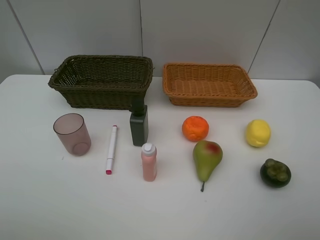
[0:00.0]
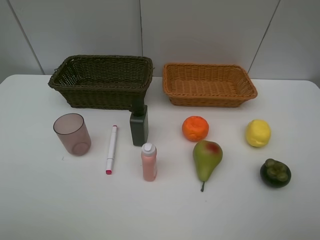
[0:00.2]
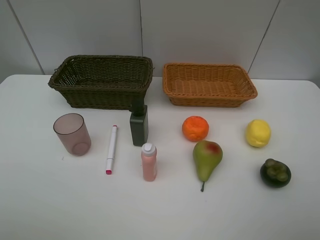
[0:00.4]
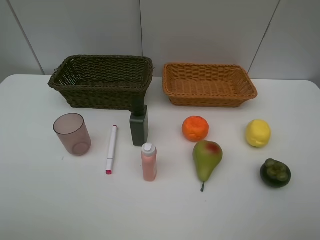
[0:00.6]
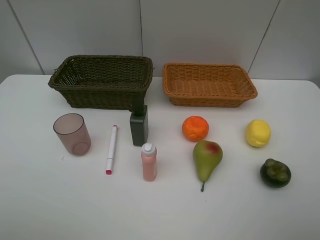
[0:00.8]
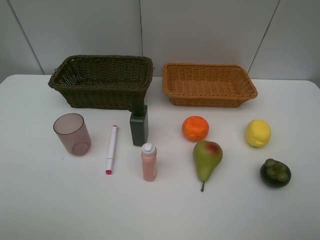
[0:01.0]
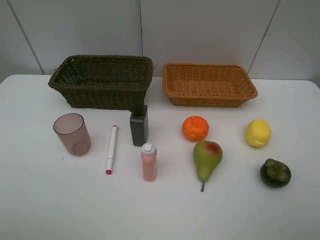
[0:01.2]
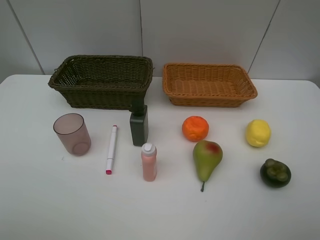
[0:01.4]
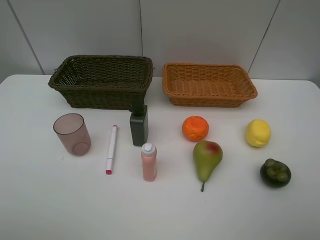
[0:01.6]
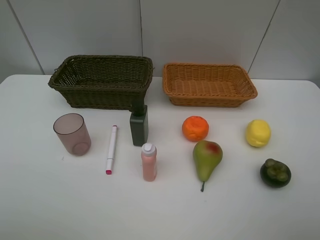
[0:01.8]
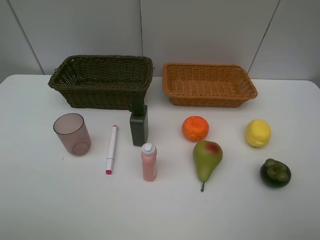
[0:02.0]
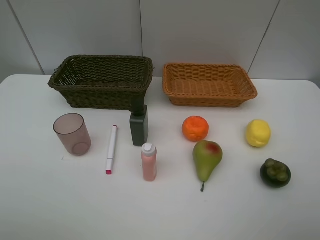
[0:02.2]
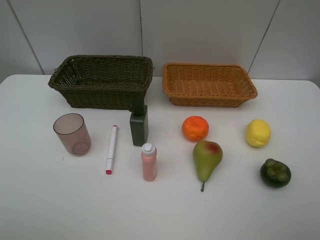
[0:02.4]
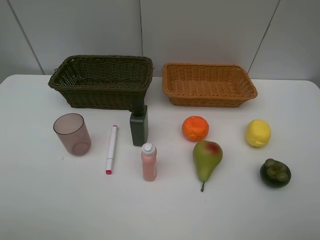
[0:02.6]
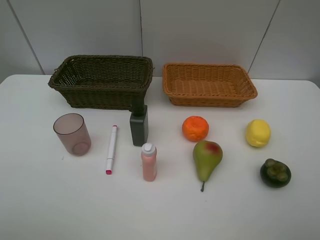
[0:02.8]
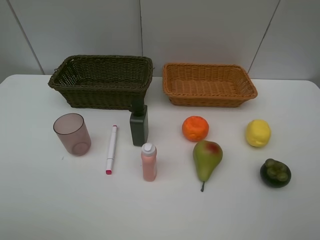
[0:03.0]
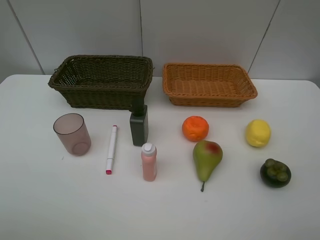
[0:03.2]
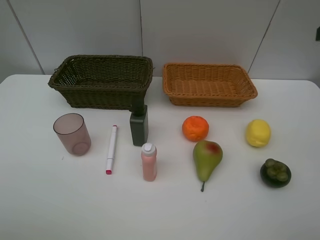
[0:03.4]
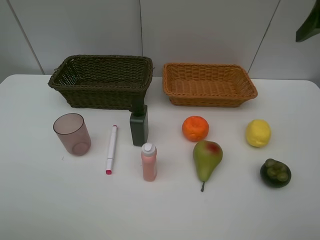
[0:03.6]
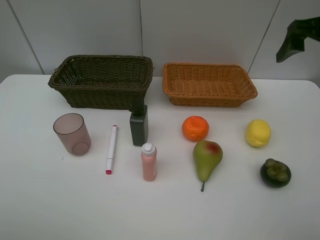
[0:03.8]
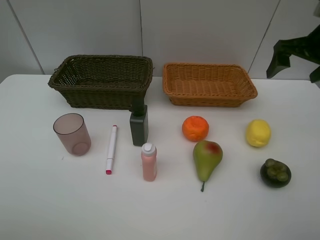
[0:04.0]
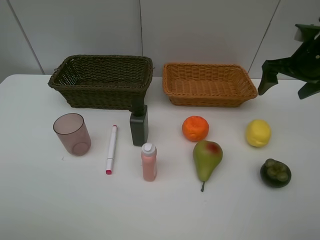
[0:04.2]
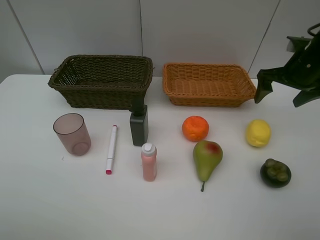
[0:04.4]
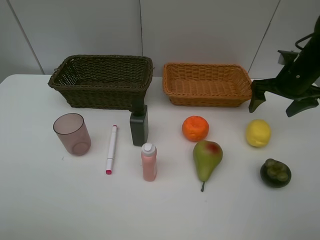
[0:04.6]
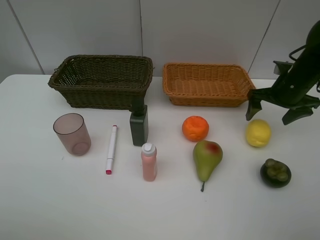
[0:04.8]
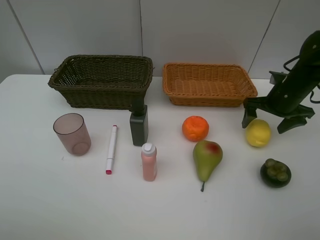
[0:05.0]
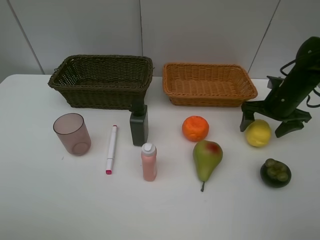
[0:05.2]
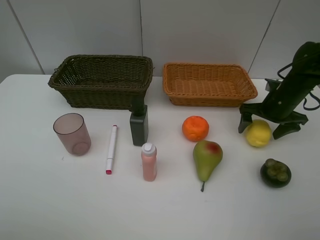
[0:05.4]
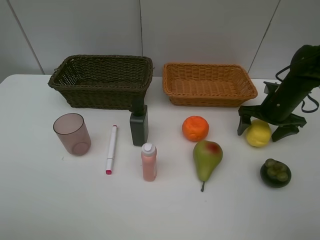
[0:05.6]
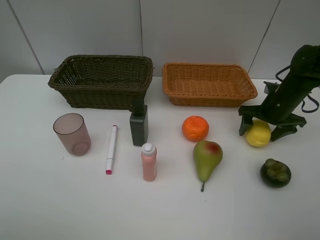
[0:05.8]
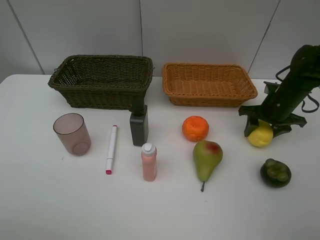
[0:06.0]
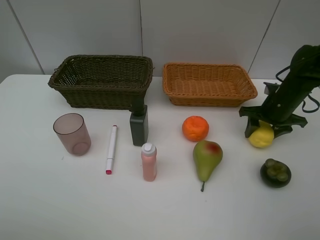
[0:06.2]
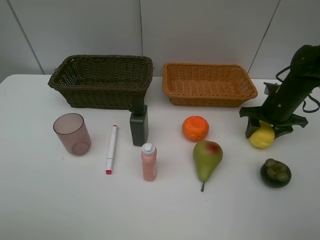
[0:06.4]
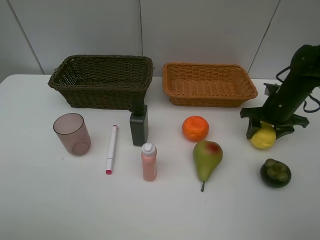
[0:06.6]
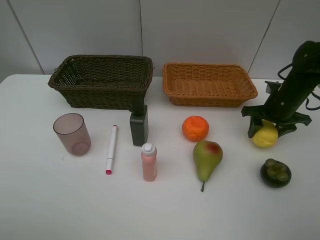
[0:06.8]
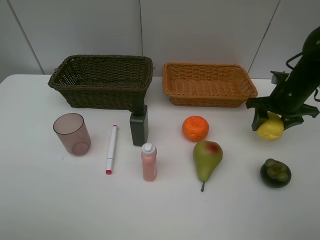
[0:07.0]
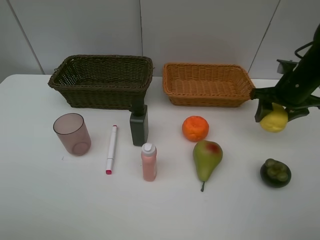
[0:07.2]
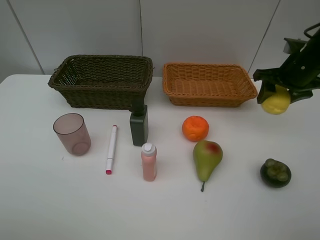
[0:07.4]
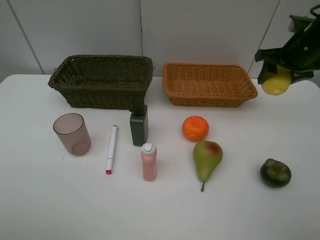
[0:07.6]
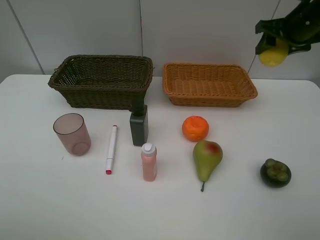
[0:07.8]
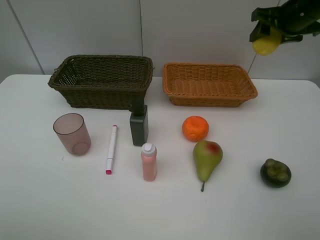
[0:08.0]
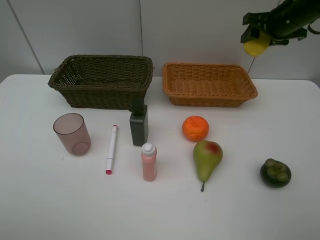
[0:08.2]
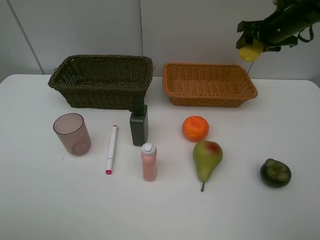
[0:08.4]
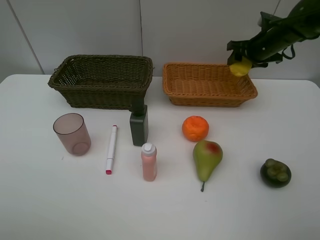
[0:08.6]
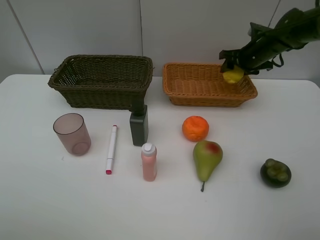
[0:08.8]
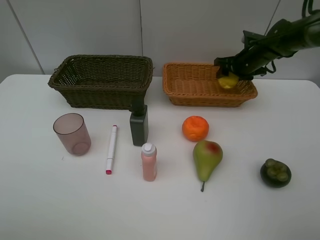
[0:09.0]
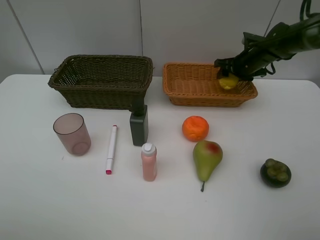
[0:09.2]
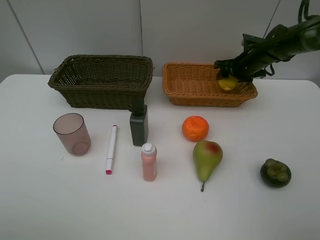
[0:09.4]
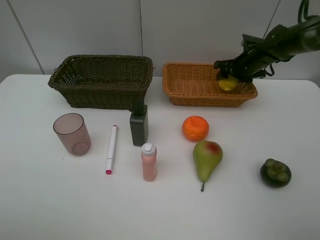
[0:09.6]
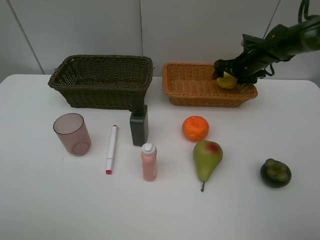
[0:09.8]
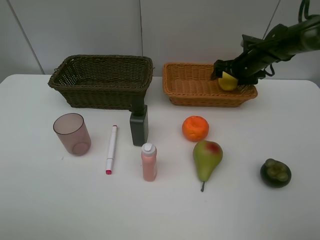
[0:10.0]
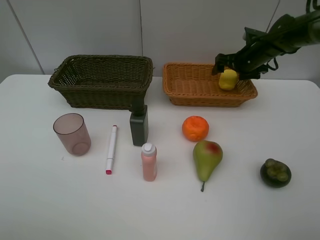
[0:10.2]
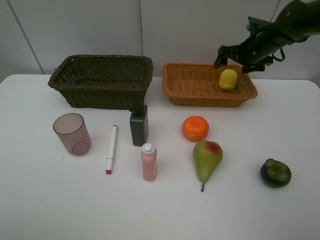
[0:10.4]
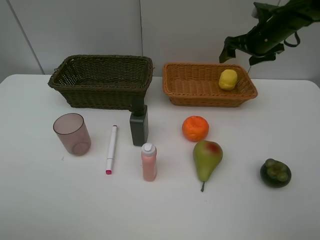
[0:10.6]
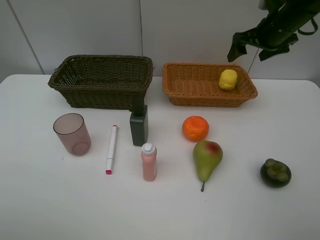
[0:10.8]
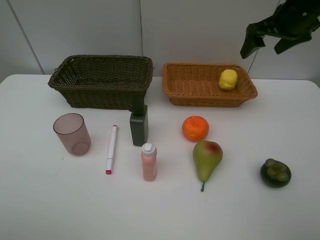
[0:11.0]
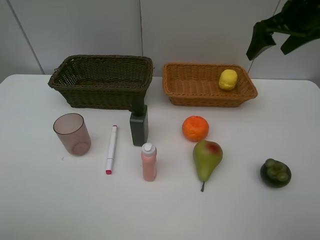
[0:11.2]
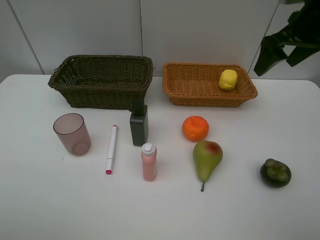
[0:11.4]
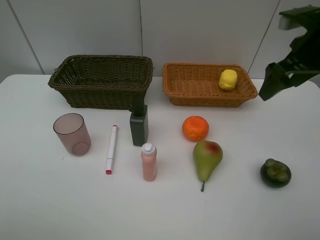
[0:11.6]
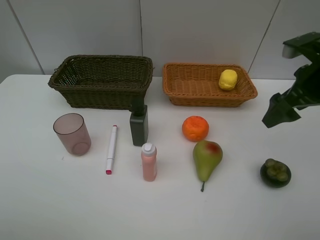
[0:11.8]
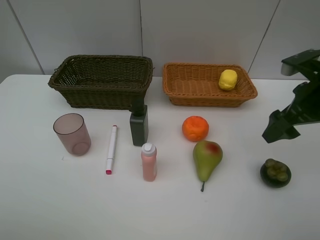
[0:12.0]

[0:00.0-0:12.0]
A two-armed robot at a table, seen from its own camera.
Task of the whole recording: Place multiple objects separately in different baskets.
Step, 0:00.0 to 0:06.8: Pick up the lemon with right gripper.
Step, 0:07.0 to 0:10.2: Place the lemon in the light basket with right gripper.
0:00.0 to 0:01.6: Both grippers stay put.
0:03.0 to 0:04.4: The right gripper goes approximately 30 cm forward and downward.
0:04.4 to 0:06.0: The right gripper travels downward by approximately 10 cm, and closes up.
0:06.0 to 0:07.6: The right gripper moves upward, some 15 cm.
0:07.6 to 0:09.0: The right gripper is displaced forward and downward by roughly 15 cm.
0:09.0 to 0:10.4: The right gripper opens its fingers.
0:10.4 to 0:12.0: The right gripper goes about 20 cm backward.

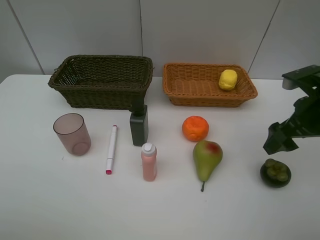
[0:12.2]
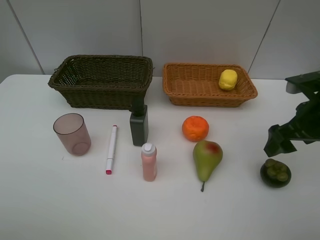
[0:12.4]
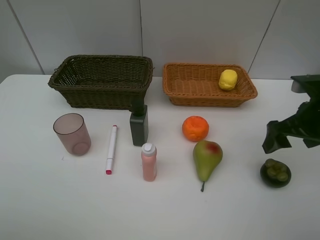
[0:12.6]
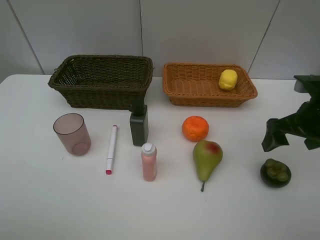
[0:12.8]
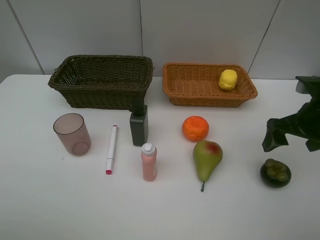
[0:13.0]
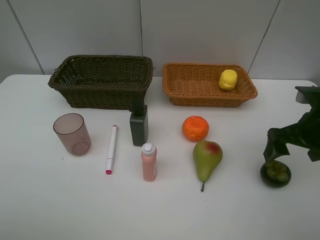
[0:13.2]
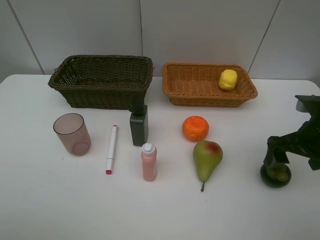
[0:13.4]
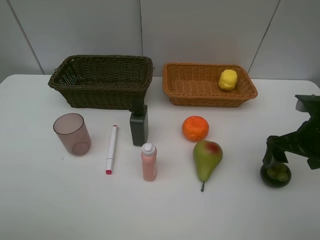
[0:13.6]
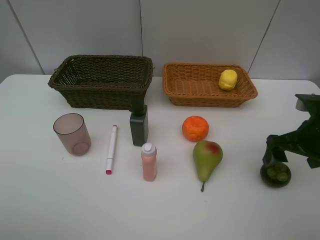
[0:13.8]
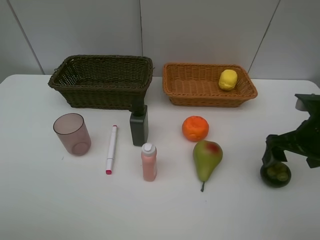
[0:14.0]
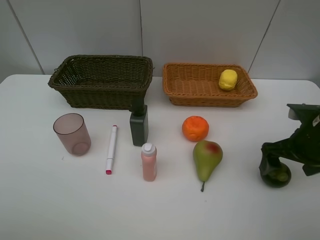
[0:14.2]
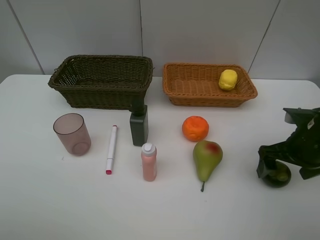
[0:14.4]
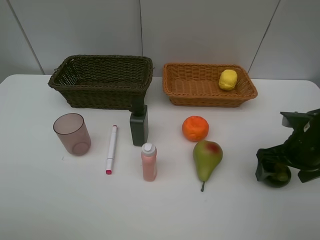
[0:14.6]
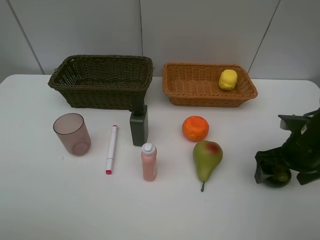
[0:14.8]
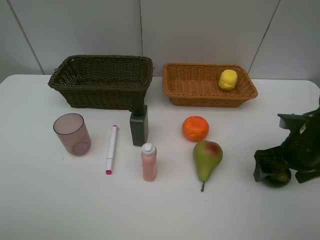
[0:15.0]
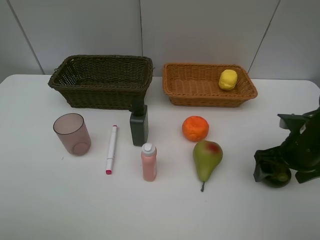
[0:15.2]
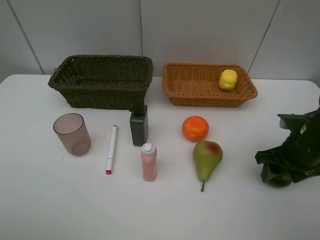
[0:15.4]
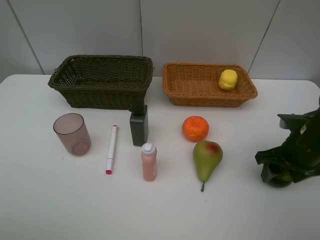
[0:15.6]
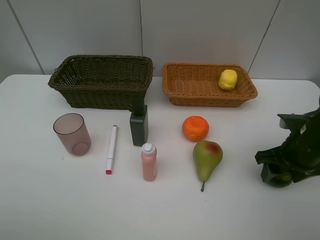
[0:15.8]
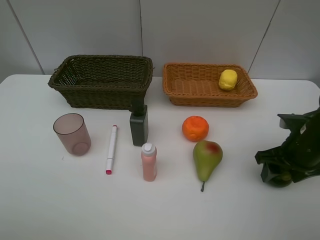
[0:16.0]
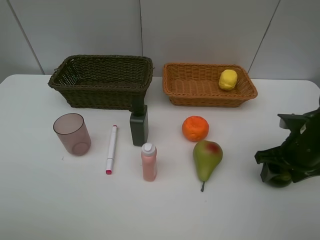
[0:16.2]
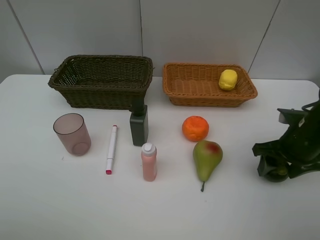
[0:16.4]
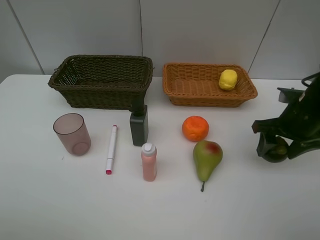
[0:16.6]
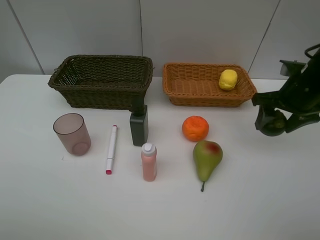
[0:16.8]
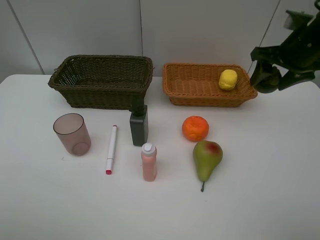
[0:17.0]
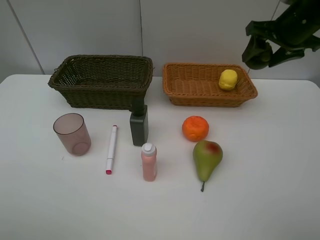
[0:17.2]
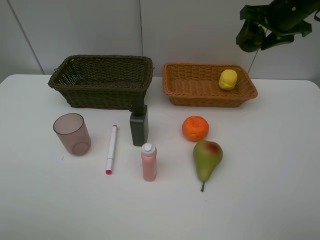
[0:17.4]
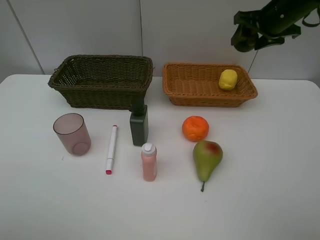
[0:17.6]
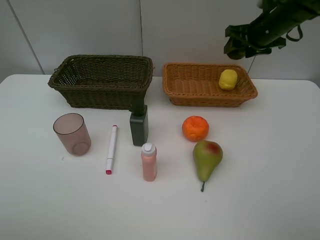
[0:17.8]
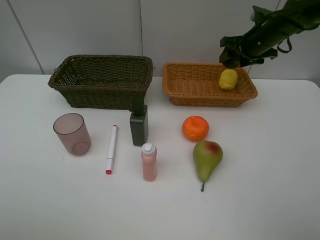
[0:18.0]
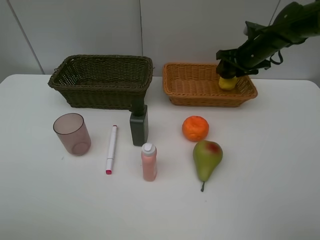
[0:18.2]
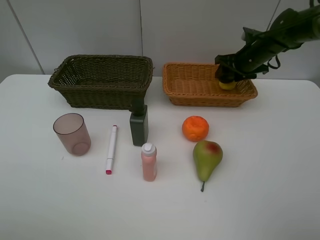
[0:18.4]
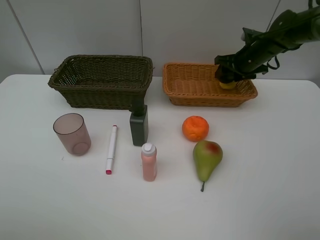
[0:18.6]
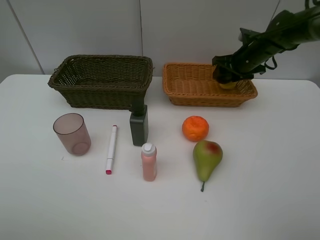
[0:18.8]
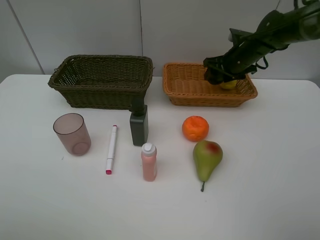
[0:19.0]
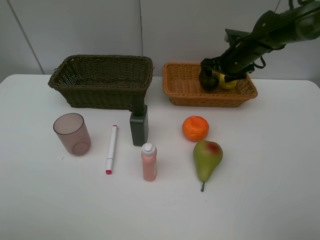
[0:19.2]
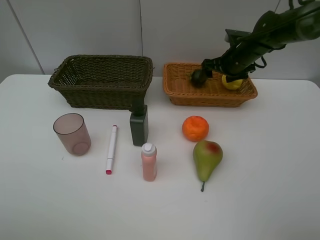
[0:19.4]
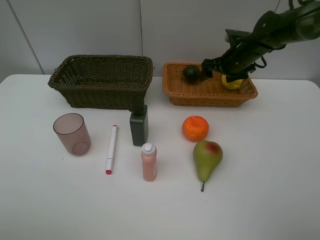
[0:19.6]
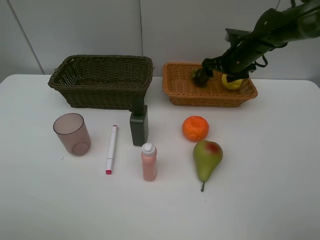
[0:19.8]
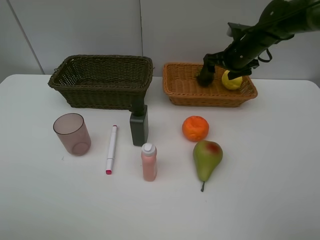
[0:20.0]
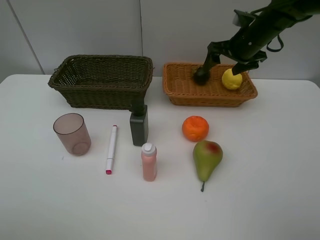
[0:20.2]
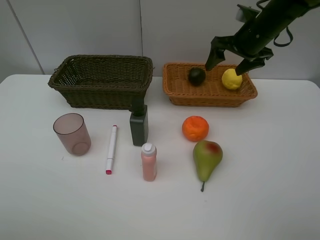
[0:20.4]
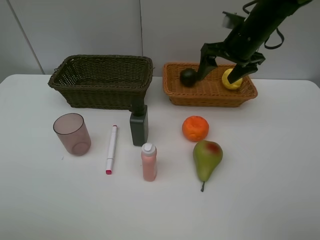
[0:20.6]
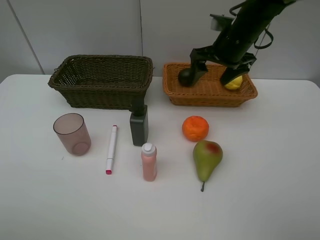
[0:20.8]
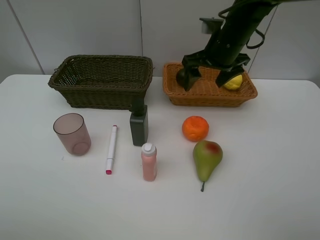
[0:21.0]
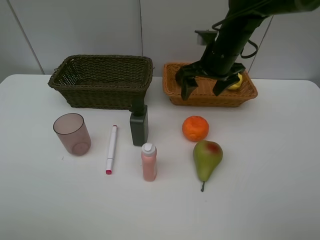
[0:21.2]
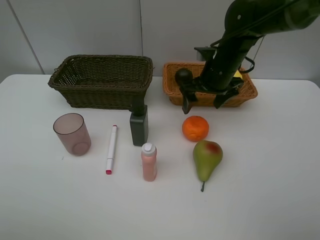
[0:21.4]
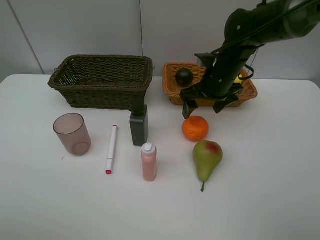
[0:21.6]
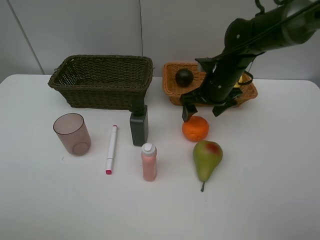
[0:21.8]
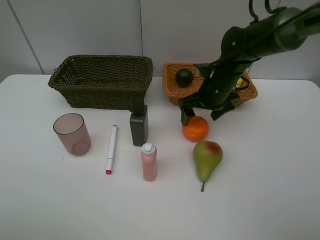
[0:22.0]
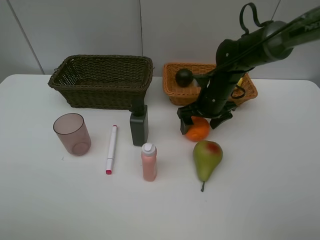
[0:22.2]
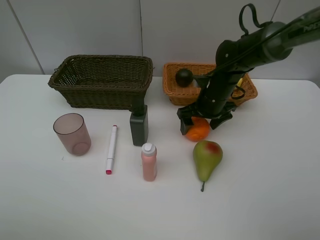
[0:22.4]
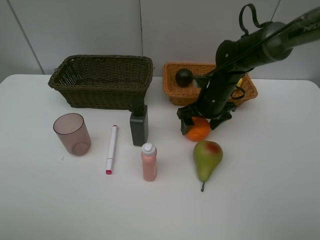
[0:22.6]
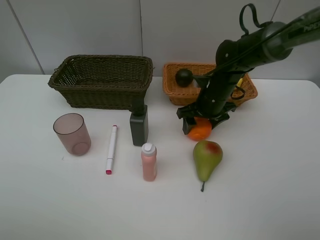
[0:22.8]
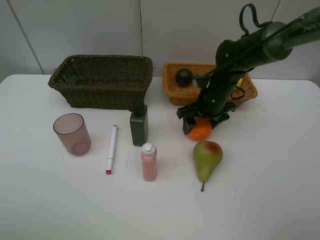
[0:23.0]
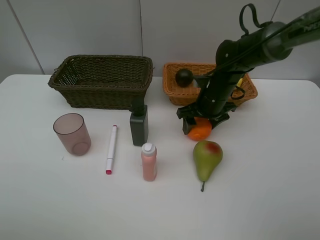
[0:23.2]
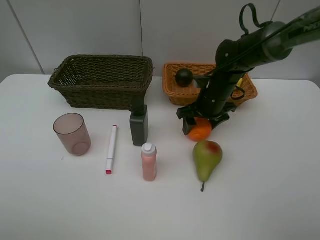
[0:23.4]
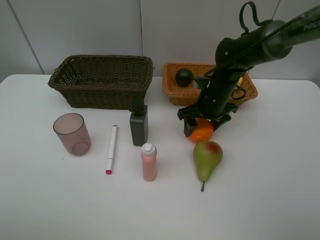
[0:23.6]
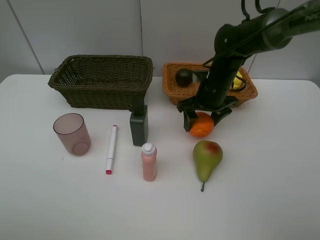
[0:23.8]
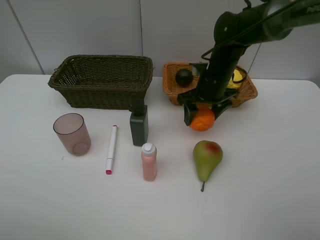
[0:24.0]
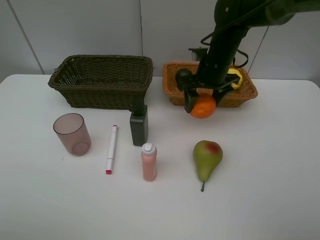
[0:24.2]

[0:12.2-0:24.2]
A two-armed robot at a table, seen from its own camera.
Task of the whole recording: Place multiple objects separately in different baskets.
Step, 0:12.2 to 0:16.4: Pick up the mangosteen with right gripper.
Step, 0:16.6 to 0:20.2: Place the mangosteen in the light basket with right gripper.
Step, 0:20.4 to 0:23.8: Pick up the orange with right gripper.
0:13.8 to 0:15.2: The right gripper is displaced downward by approximately 5 cm.
0:15.2 to 0:16.6: The right gripper shifts roughly 5 cm upward, and closes its fingers.
0:16.6 to 0:18.2: The right gripper heads forward, covering approximately 20 cm.
0:18.2 to 0:19.8: The right gripper opens its fingers.
0:19.8 to 0:21.2: The right gripper shifts about 10 cm backward and to the left.
0:21.2 to 0:22.6: The right gripper is displaced downward by about 10 cm.
0:22.6 to 0:24.2: The right gripper shifts about 10 cm upward.
